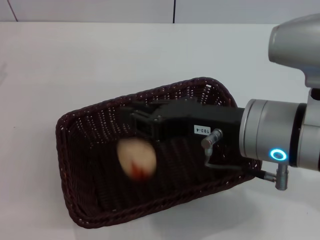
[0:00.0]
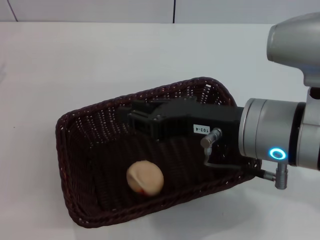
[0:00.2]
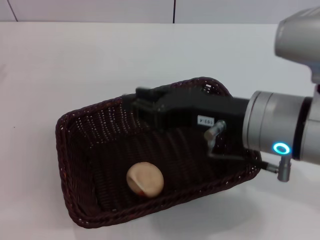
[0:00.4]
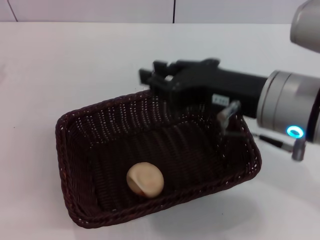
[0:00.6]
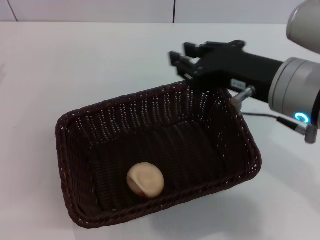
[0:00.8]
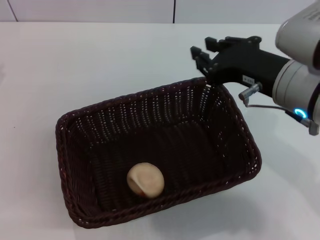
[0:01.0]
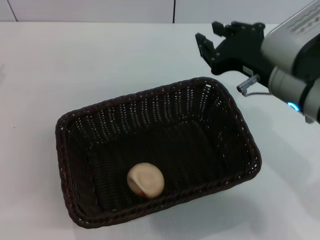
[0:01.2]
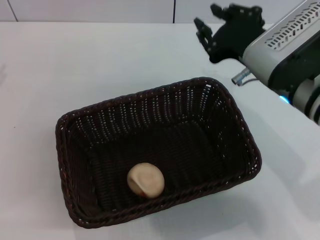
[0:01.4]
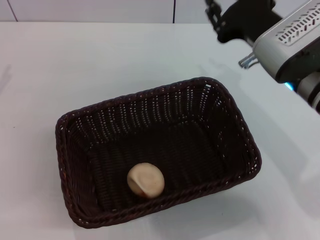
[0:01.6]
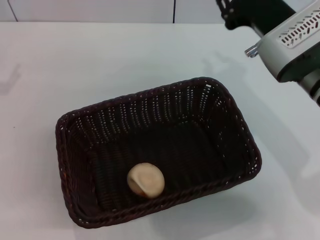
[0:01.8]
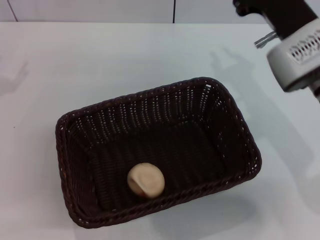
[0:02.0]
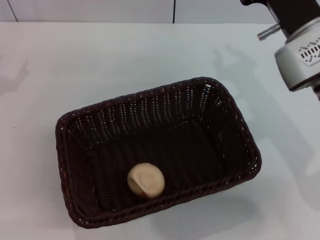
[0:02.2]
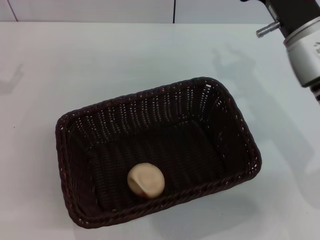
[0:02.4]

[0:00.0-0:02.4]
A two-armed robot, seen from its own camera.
0:00.0 to 0:01.2: The right gripper moves forward, about 5 cm, and opens its fingers.
0:01.2 to 0:02.4: The right gripper shifts roughly 5 cm forward.

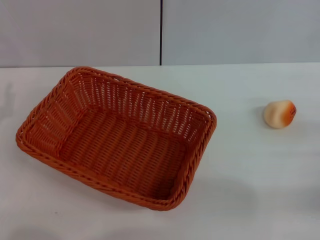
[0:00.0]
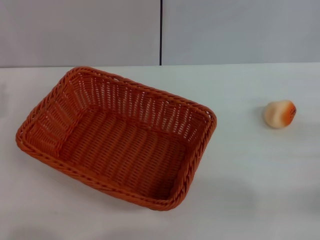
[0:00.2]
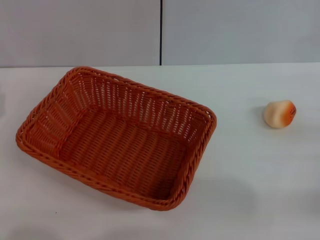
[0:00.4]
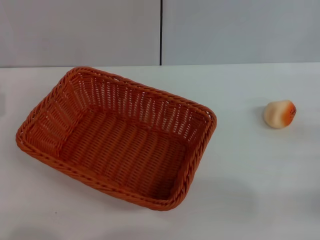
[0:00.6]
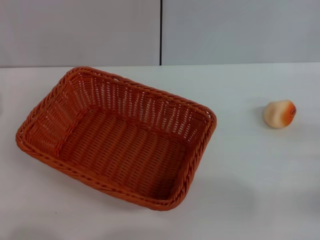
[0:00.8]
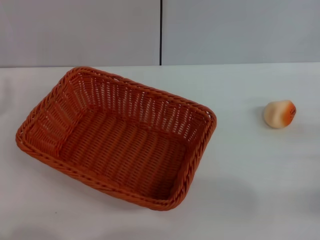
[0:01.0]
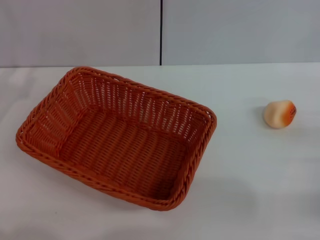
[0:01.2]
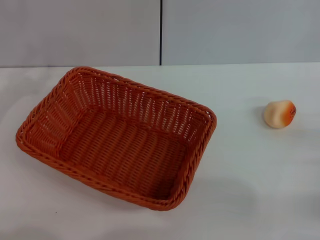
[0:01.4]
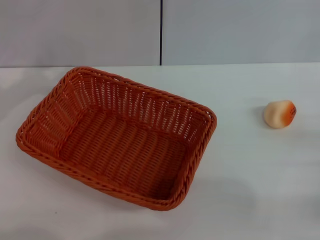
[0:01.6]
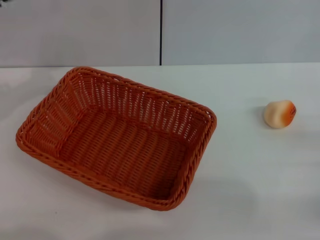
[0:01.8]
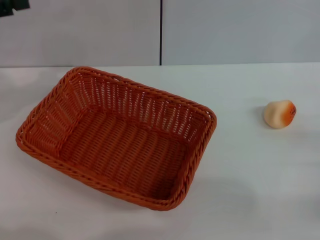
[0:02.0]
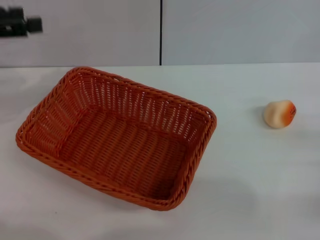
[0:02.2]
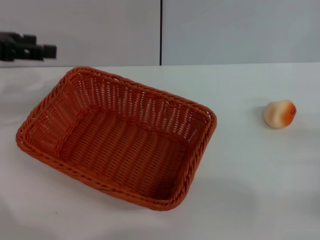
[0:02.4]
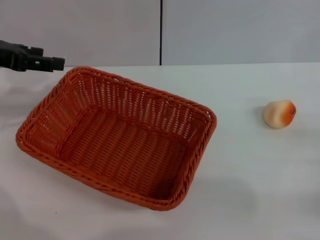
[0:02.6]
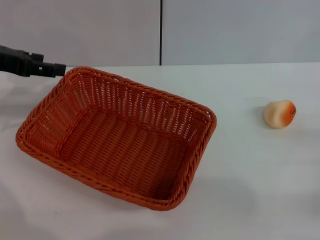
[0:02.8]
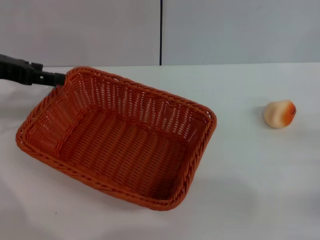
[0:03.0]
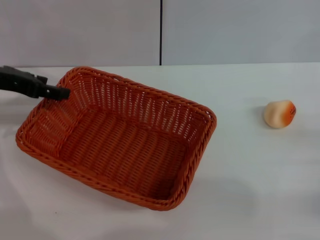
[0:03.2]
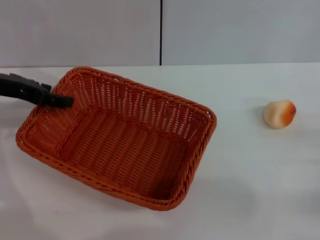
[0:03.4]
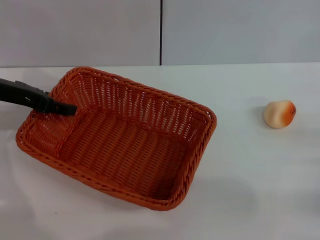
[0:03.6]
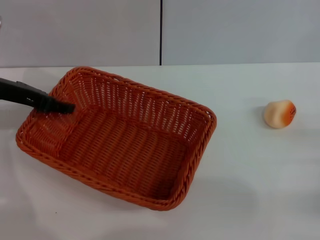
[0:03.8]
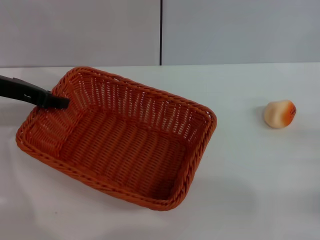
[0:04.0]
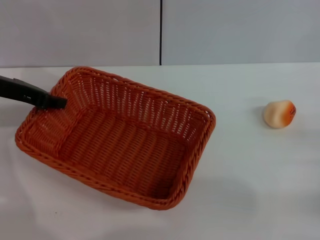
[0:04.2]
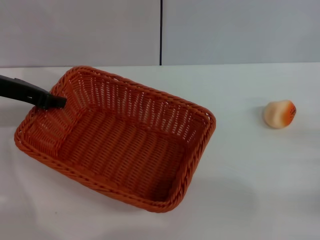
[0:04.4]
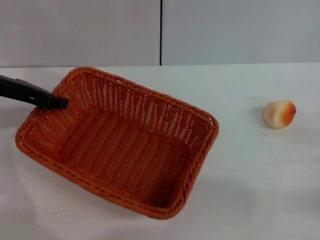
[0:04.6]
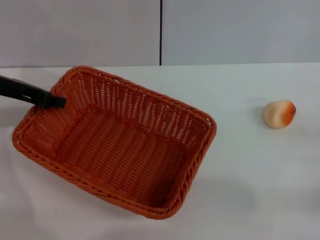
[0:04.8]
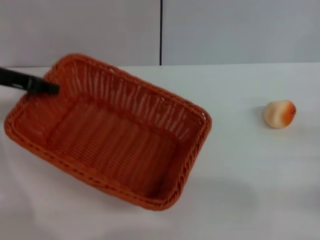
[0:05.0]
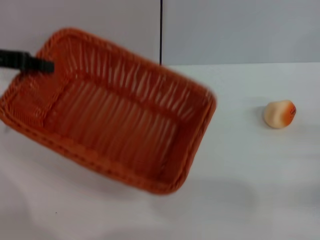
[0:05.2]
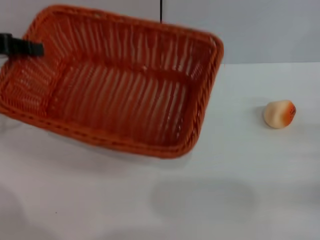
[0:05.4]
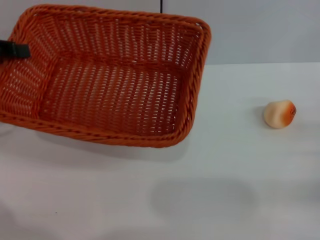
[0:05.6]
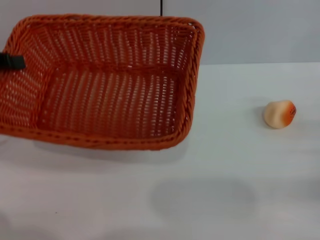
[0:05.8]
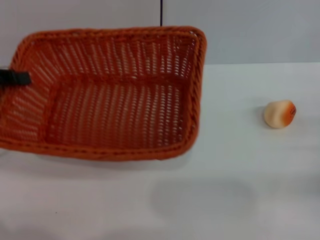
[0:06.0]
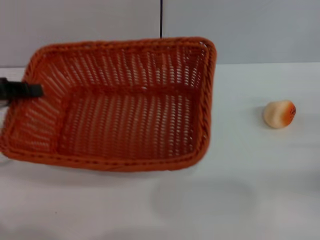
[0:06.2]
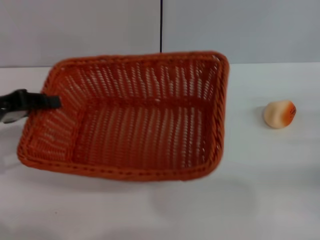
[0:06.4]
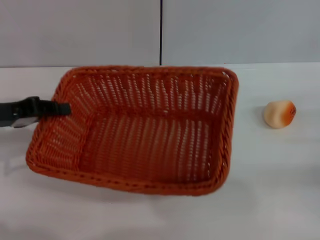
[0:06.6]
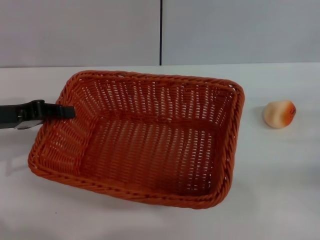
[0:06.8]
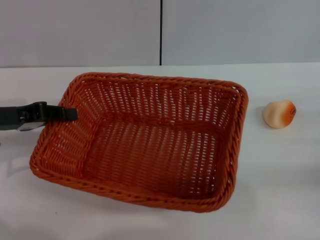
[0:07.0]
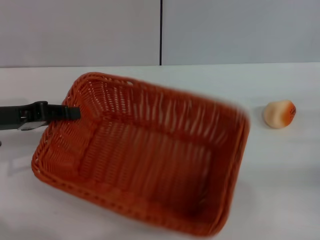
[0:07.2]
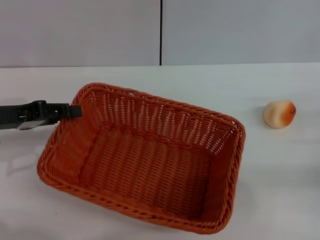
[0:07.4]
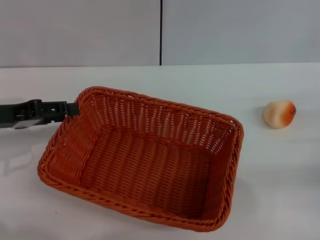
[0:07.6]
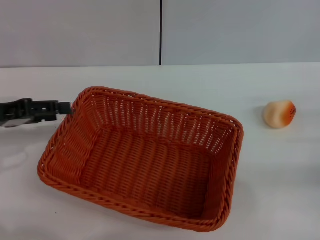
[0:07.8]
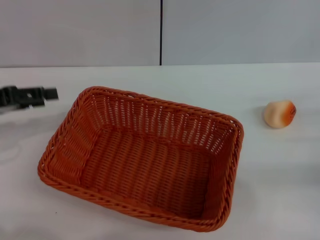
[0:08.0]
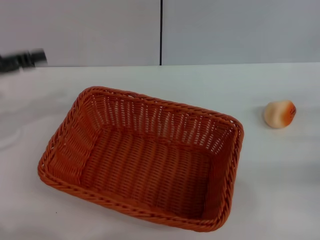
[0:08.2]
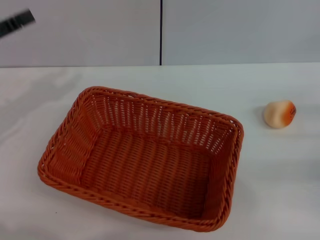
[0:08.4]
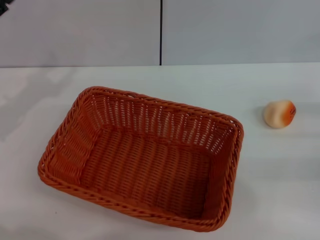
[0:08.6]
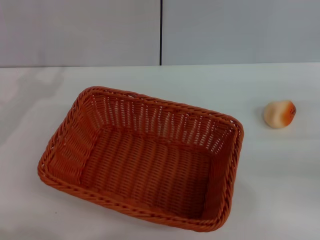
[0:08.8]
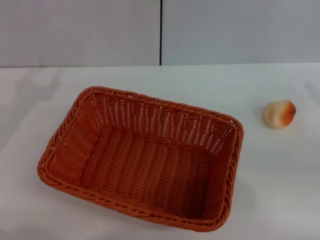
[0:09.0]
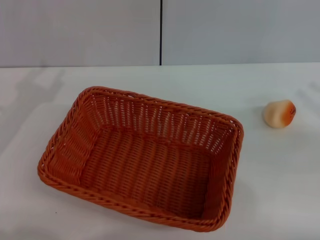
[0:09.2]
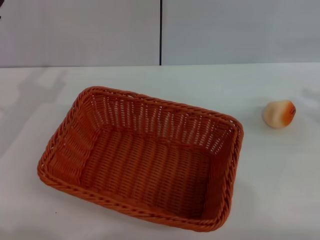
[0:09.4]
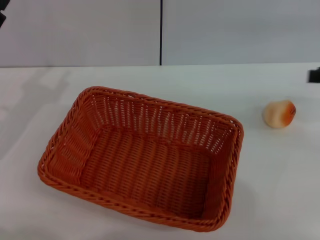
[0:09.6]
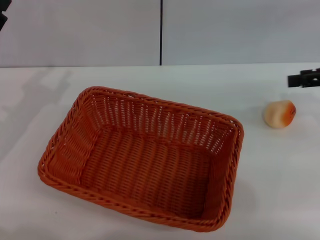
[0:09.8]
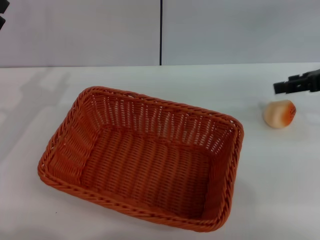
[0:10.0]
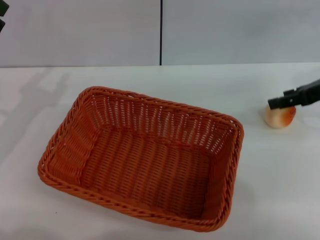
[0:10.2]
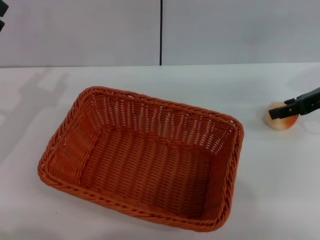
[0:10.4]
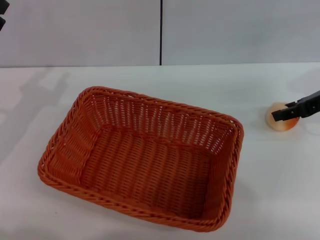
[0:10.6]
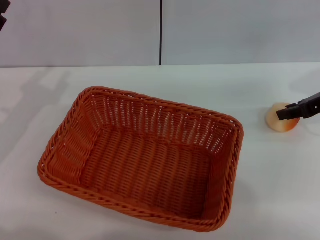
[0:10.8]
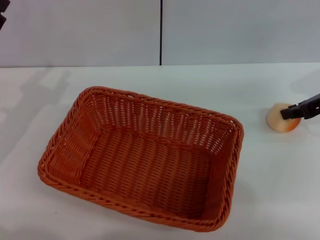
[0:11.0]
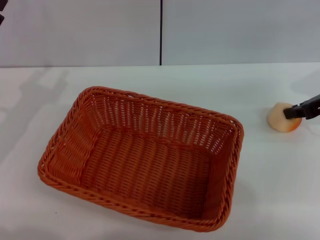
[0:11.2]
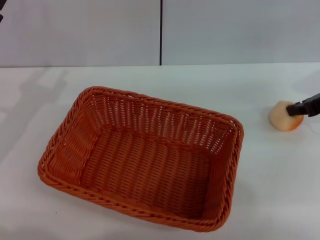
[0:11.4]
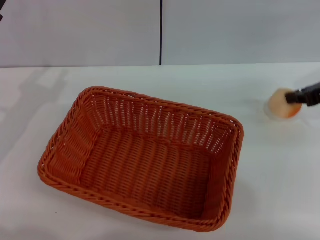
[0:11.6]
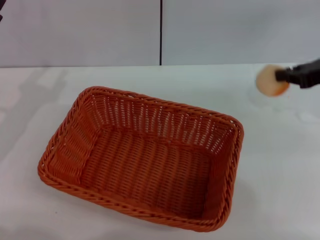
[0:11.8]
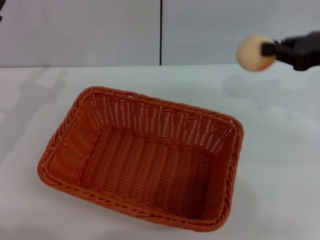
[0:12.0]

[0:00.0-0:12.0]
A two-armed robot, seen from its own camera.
Step, 0:00.0 to 0:07.8: Move the basket to the center of view with the left gripper.
Step, 0:08.0 to 0:11.6: Pick up the egg yolk pastry with the right gripper.
0:01.6 to 0:03.0: The left gripper moves to the right, approximately 5 cm, and opens its fingers.
0:03.0 to 0:04.4: The left gripper closes its fingers.
0:04.4 to 0:06.0: The left gripper is displaced backward and to the left by some 10 cm.
0:06.0 to 0:07.6: The left gripper moves about 5 cm.
0:09.0 to 0:10.4: The right gripper shifts roughly 15 cm forward and to the left.
0:10.4 to 0:12.0: The right gripper changes place by some 5 cm, and closes its fingers.

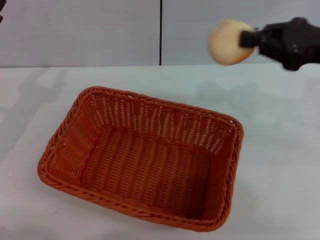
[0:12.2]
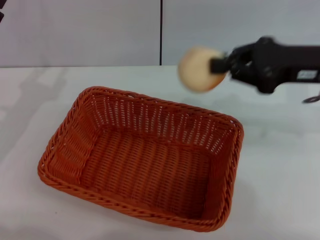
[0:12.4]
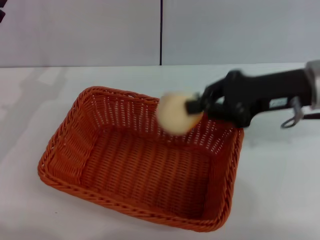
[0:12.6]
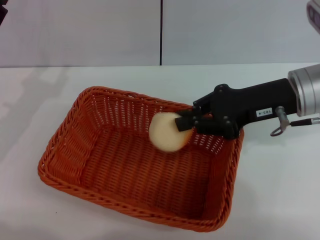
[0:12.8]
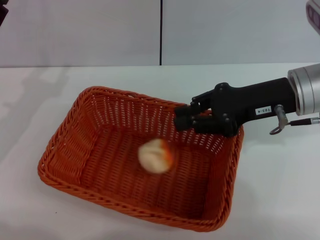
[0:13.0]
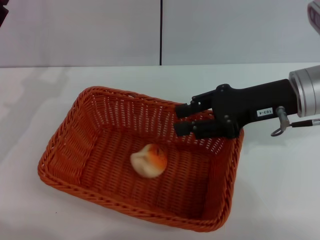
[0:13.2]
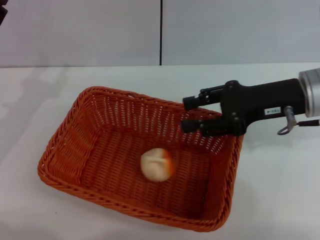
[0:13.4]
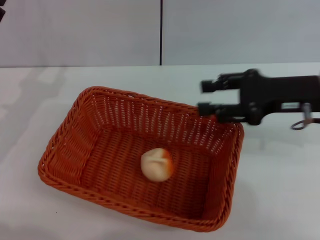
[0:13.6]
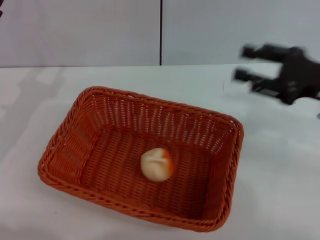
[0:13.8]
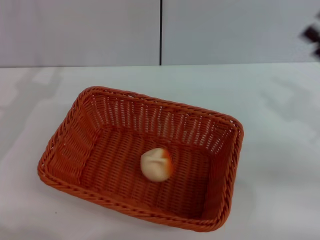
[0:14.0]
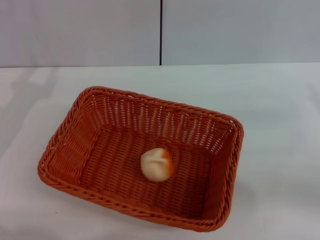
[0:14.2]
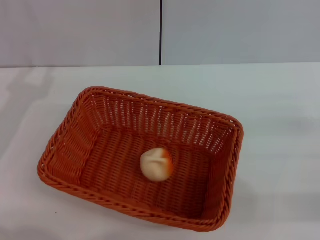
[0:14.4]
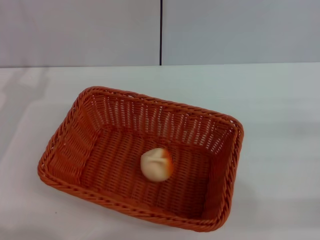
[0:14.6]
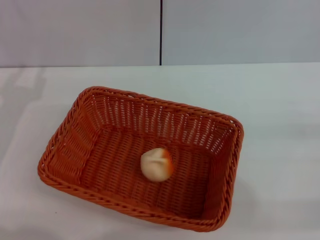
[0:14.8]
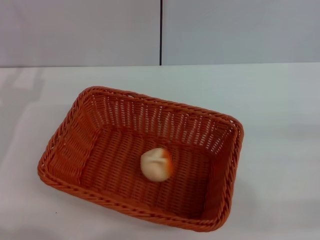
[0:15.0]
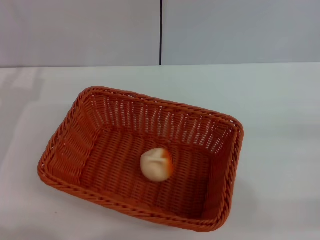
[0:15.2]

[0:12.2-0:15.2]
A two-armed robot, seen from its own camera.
Step, 0:12.2 to 0:13.4: Place the egg yolk pastry into the basket with the right gripper.
0:12.2 to 0:13.8: The right gripper heads downward, covering approximately 5 cm, travels to the left and back again, roughly 5 cm each way, and opens up.
0:13.8 to 0:15.2: The right gripper is displaced to the right, backward and downward by approximately 15 cm.

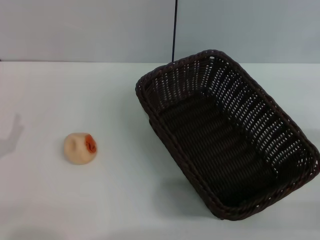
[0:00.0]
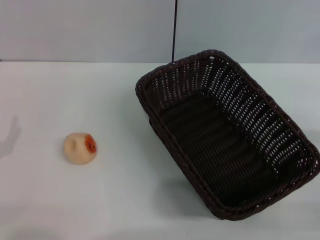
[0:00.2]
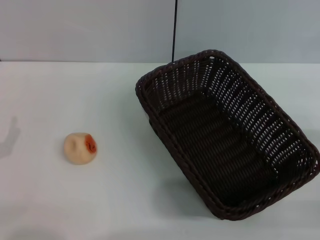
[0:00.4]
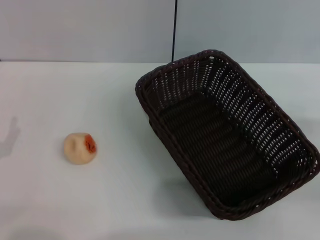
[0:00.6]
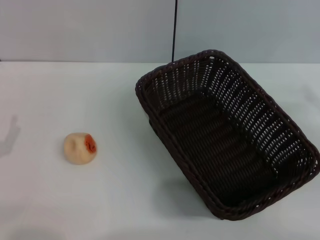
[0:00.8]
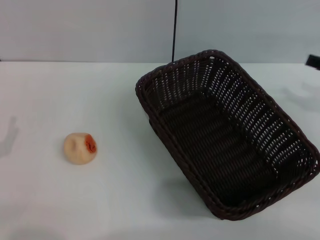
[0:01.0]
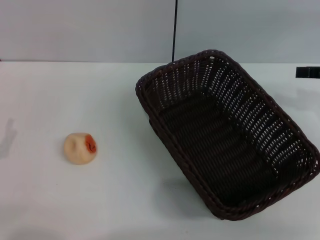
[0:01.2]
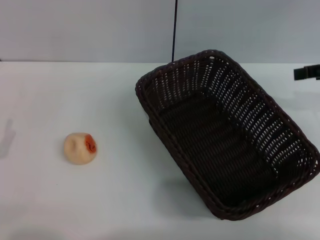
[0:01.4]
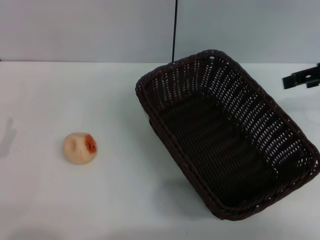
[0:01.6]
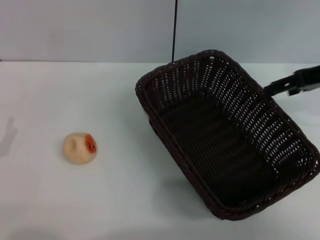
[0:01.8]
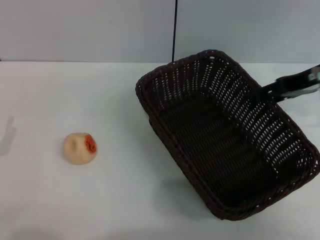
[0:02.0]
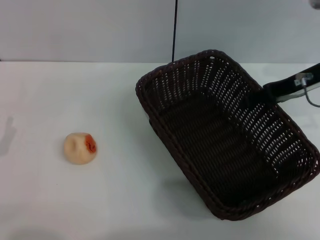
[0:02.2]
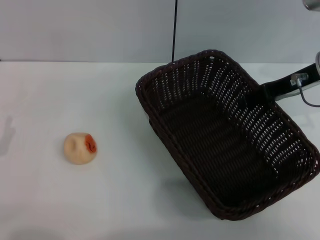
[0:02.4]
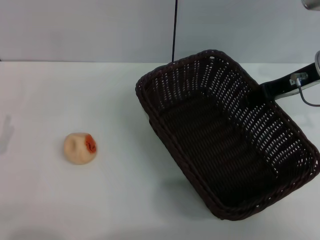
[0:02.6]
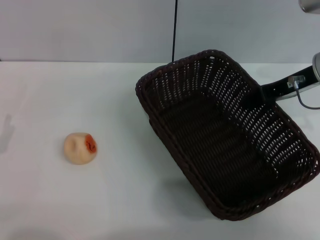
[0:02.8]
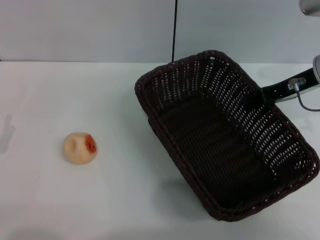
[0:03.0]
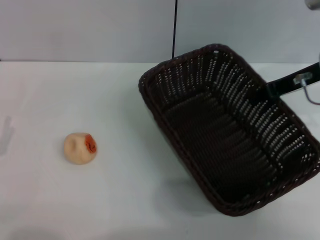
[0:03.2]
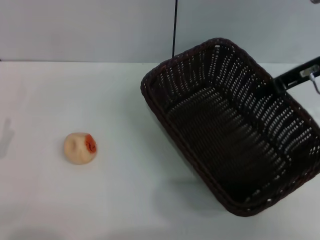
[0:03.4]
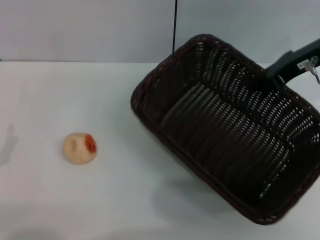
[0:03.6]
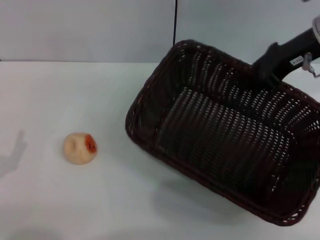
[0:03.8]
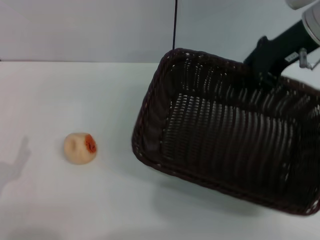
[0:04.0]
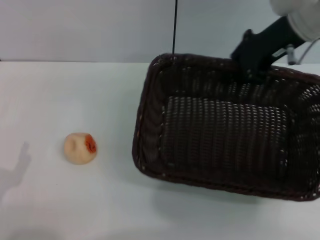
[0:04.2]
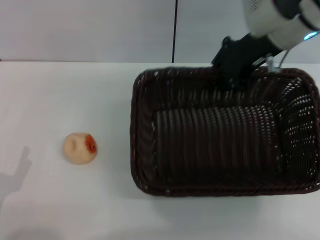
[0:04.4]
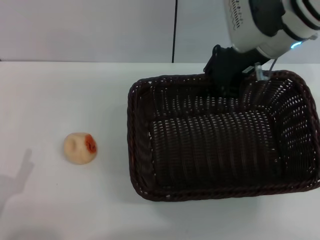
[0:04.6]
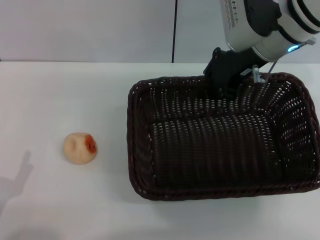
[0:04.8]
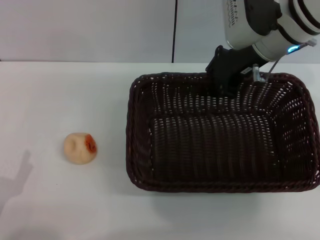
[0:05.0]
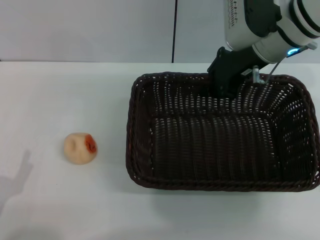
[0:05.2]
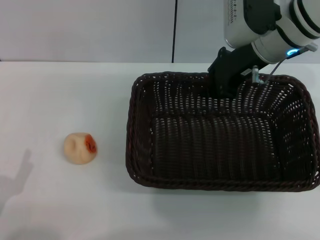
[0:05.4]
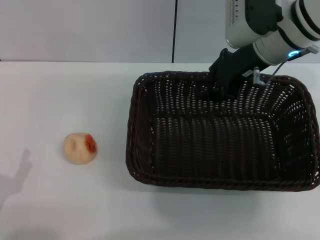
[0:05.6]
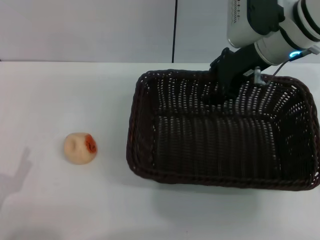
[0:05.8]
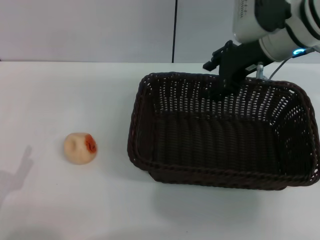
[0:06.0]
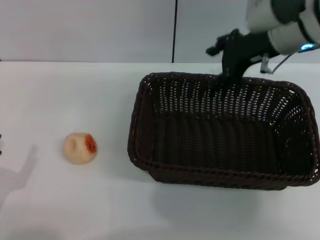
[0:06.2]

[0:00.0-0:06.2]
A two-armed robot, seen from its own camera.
Step, 0:00.0 to 0:06.0: Move the basket to the center of view with the right gripper.
0:00.0 to 0:01.6: The right gripper heads upward and forward, covering some 25 cm.
0:01.6 to 0:03.2: The right gripper goes some 5 cm to the left, and closes up.
0:03.2 to 0:04.6: The left gripper travels backward by approximately 5 cm, while the right gripper is displaced to the left by approximately 10 cm.
0:04.6 to 0:06.2: The right gripper opens.
